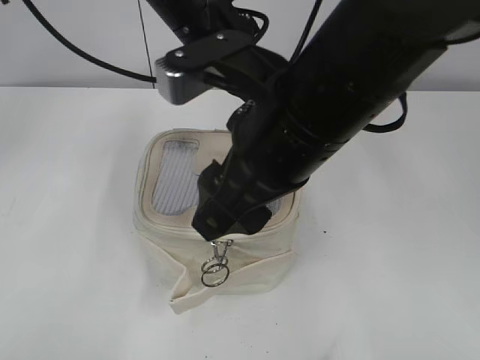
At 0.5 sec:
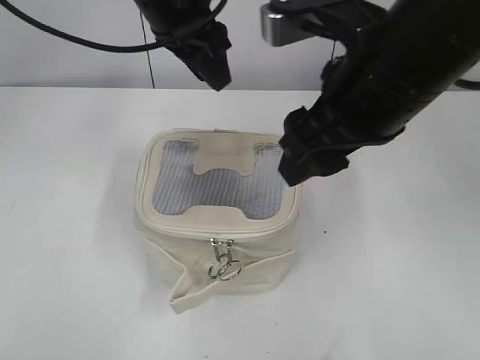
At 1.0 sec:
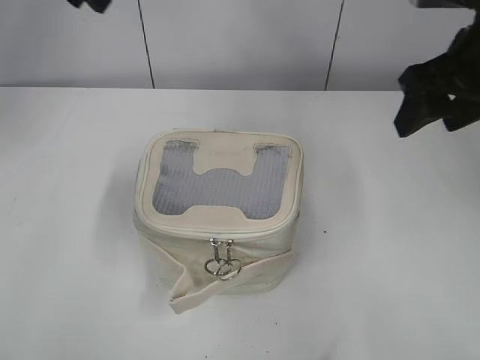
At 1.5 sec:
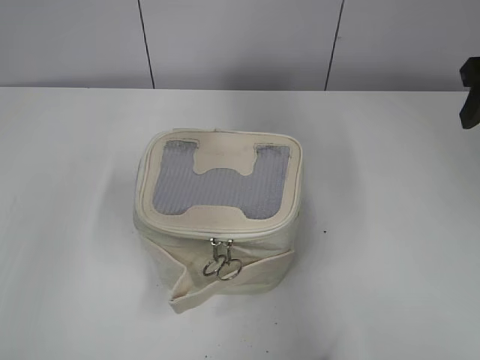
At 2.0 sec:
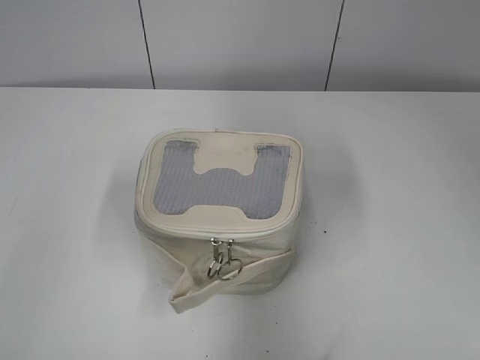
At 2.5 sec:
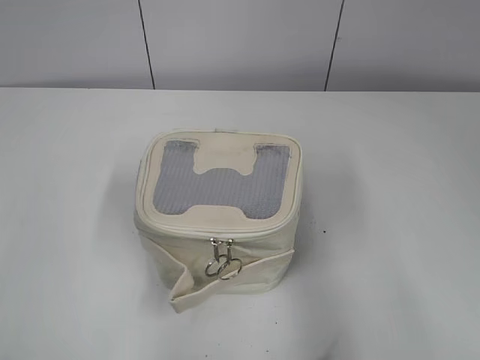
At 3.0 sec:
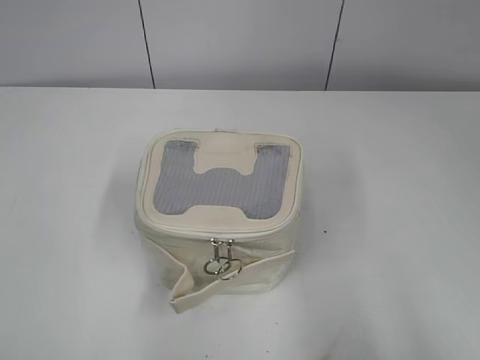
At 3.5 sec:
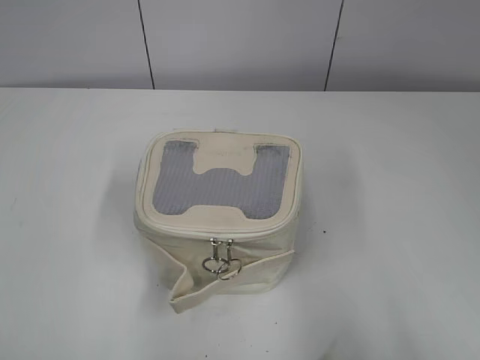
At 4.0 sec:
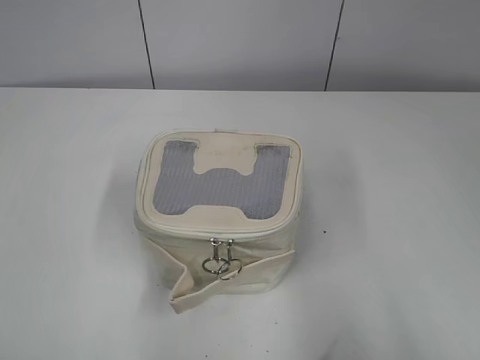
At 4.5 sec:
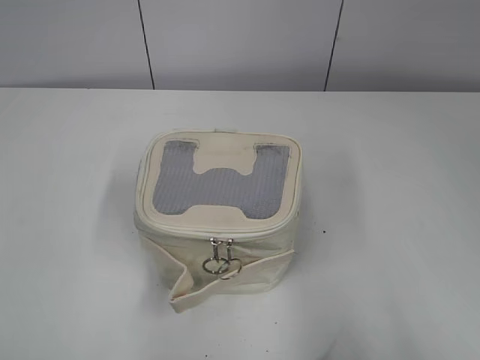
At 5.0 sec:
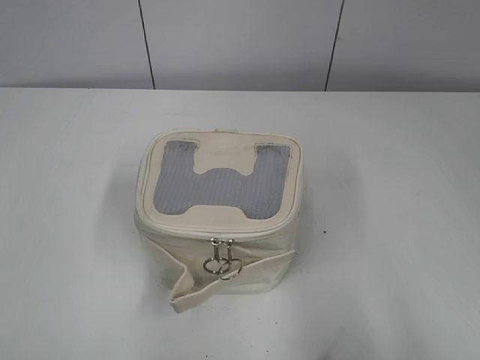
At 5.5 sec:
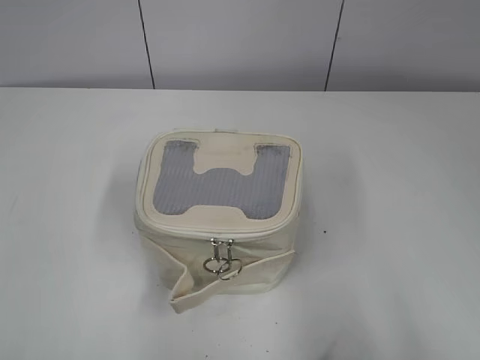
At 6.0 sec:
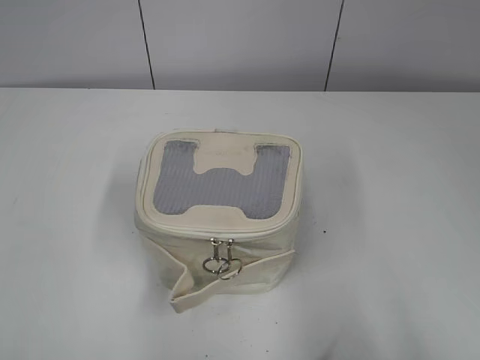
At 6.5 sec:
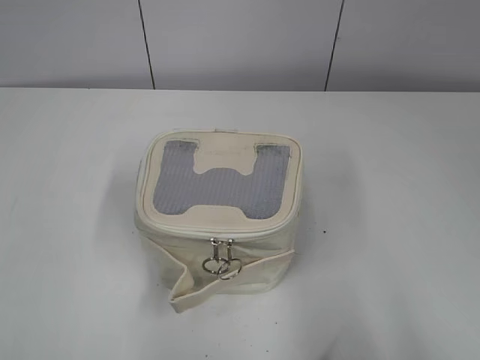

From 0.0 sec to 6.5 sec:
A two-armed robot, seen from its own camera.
From 0.0 sec to 2.0 sec: The right gripper heads to the right, covering approximately 25 cm. Meanwhile the left gripper shifts roughly 35 cm to the left and backward.
From 2.0 sec to 4.5 sec: The right gripper shifts about 25 cm backward; the left gripper heads backward and downward, covering about 10 cm.

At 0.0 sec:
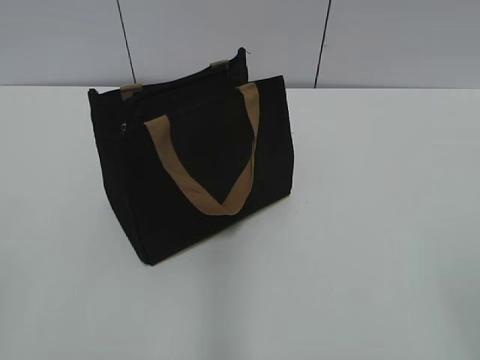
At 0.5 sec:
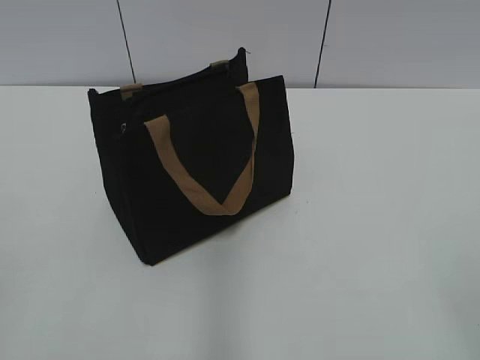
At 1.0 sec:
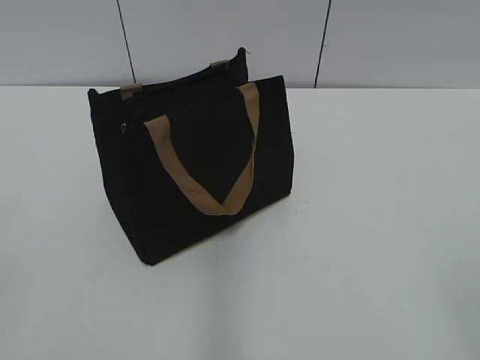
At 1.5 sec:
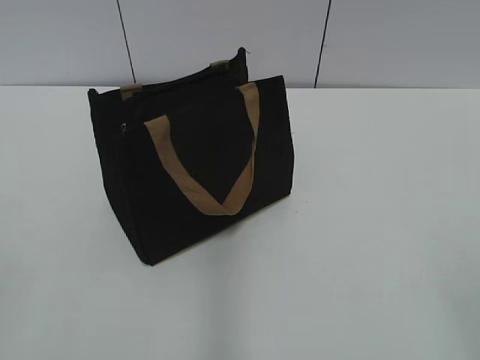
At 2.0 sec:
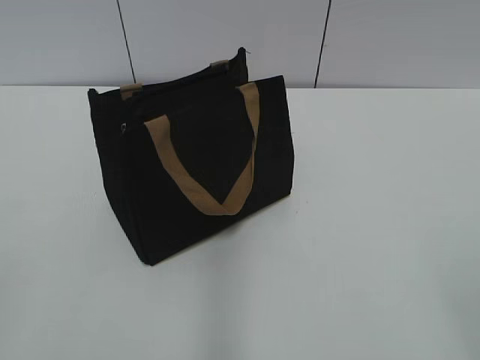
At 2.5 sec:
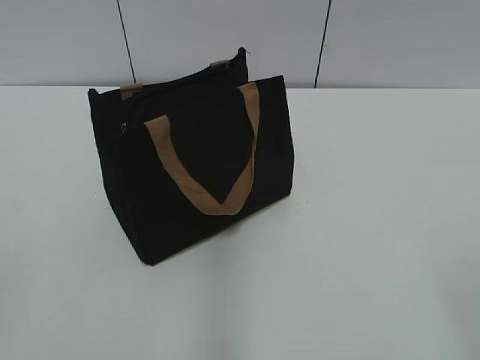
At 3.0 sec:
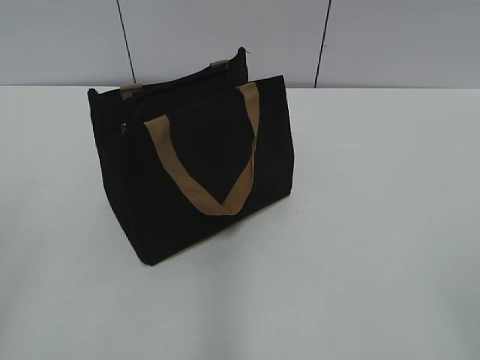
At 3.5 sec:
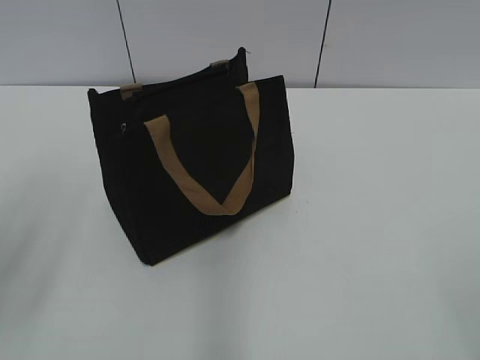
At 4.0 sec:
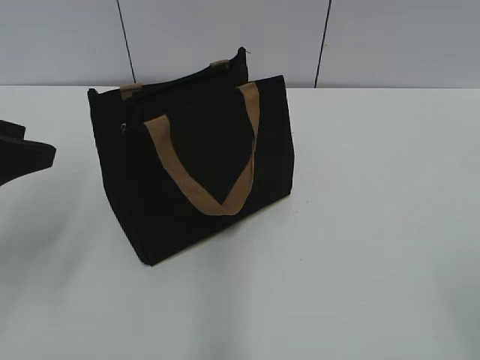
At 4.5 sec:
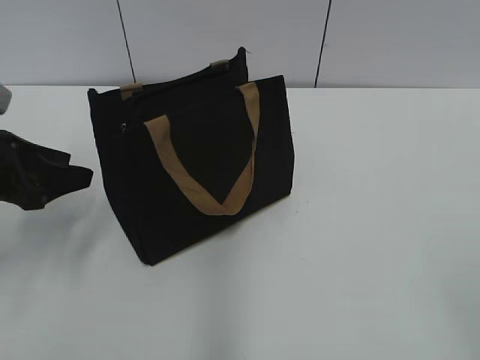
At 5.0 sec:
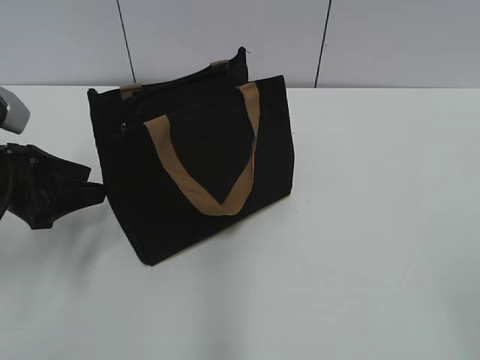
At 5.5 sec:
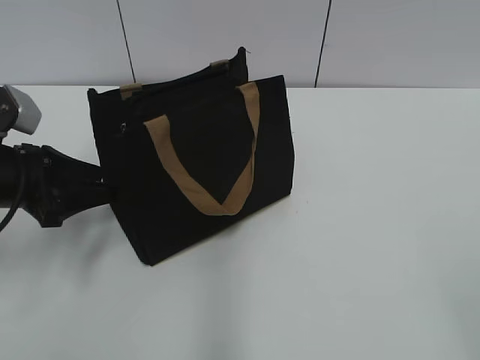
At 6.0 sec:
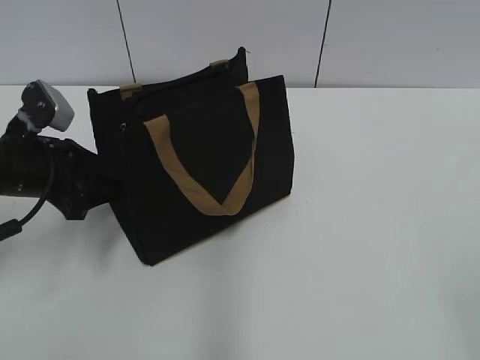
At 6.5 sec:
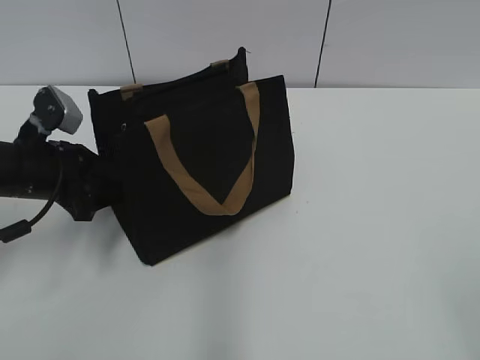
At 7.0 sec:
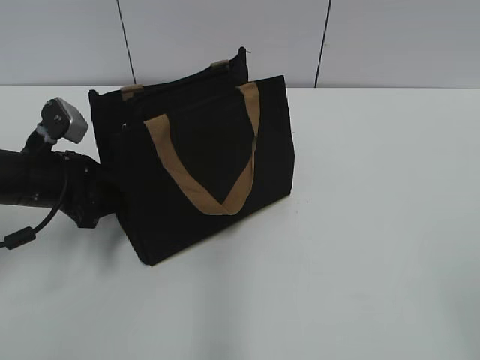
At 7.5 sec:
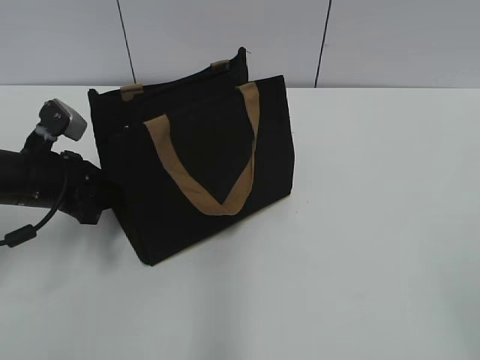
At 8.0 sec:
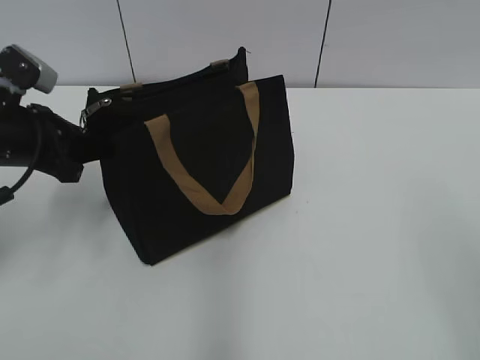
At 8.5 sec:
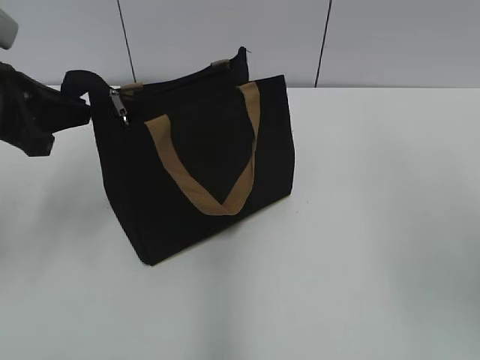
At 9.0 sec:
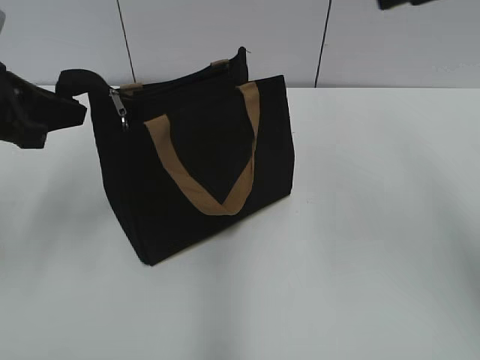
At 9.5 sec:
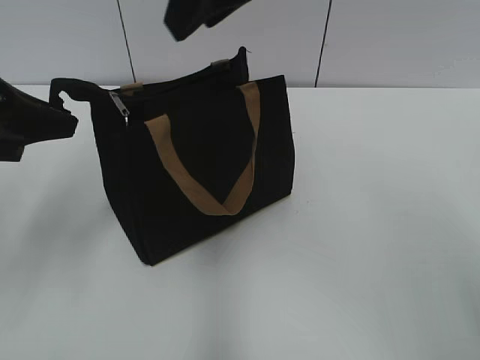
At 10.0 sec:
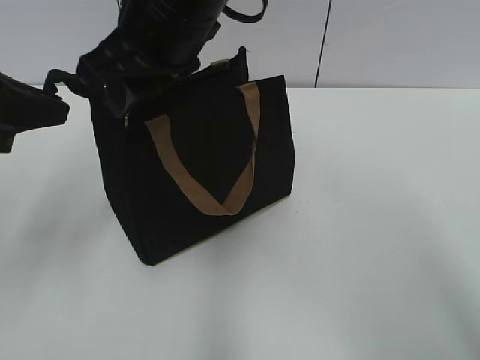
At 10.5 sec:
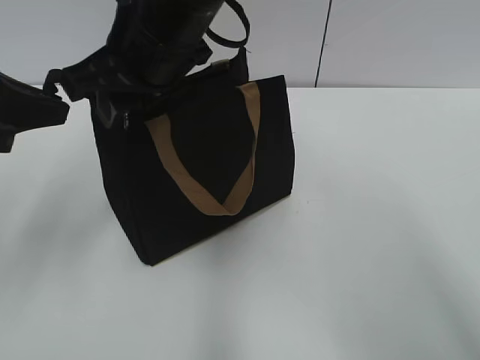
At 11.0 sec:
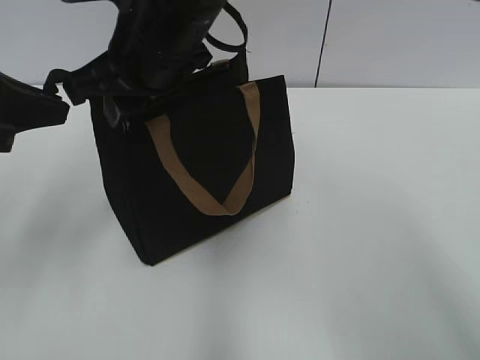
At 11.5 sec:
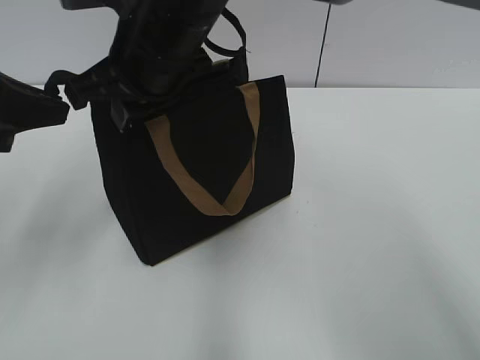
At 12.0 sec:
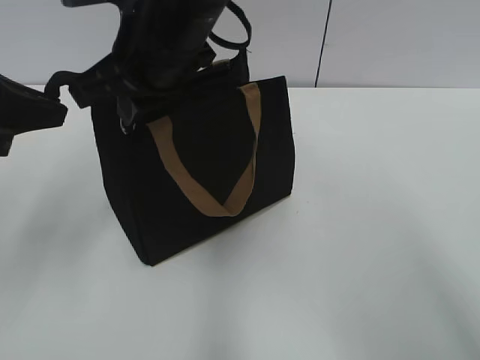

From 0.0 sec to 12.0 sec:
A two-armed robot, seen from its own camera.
From 2.0 sec to 4.0 sec: The left gripper heads forward, covering roughly 20 cm.
From 4.0 sec to 6.0 sec: The left gripper goes approximately 10 cm downward and forward.
From 6.0 sec to 8.0 sec: The left gripper closes.
From 8.0 sec to 10.0 sec: The left gripper is displaced upward and backward by about 10 cm. Meanwhile the right gripper shifts approximately 40 cm to the left and forward.
From 10.0 sec to 12.0 sec: The right gripper closes up.

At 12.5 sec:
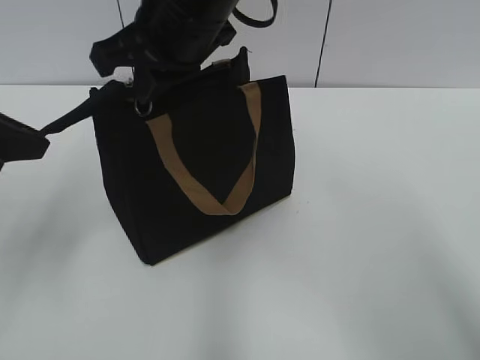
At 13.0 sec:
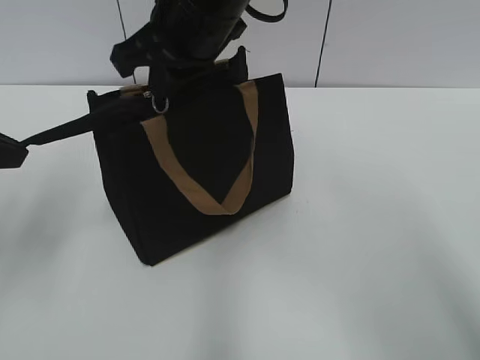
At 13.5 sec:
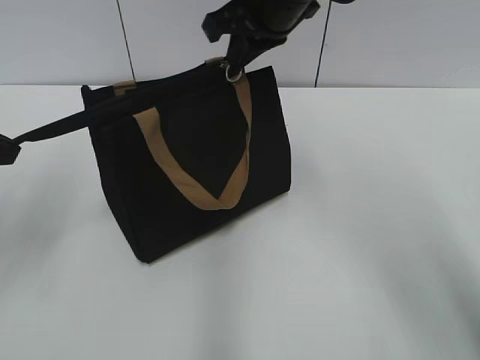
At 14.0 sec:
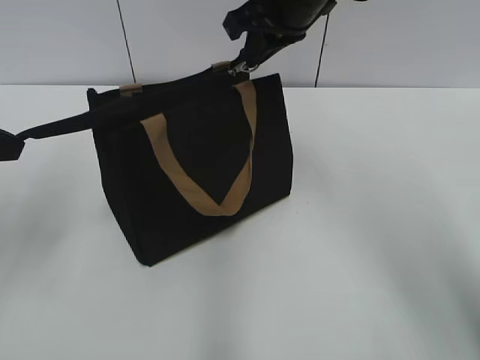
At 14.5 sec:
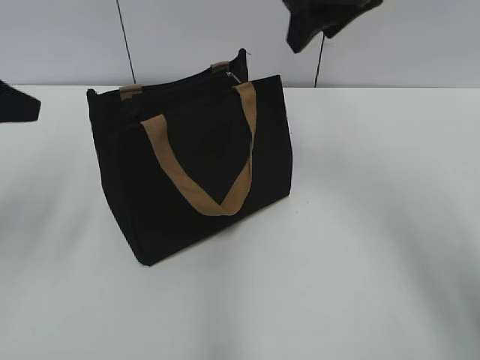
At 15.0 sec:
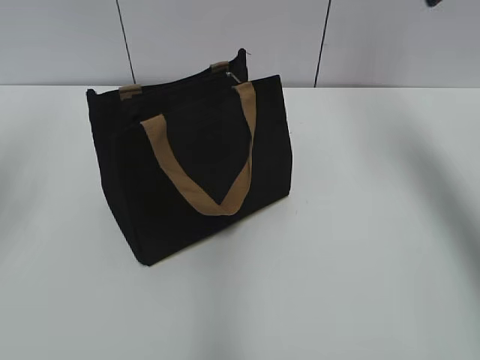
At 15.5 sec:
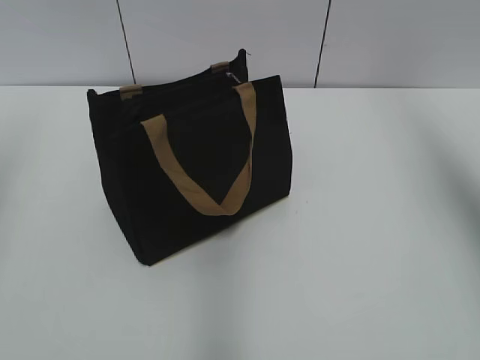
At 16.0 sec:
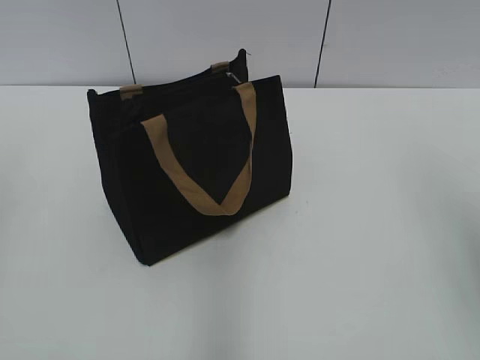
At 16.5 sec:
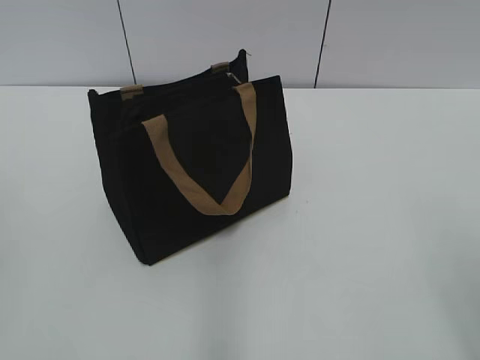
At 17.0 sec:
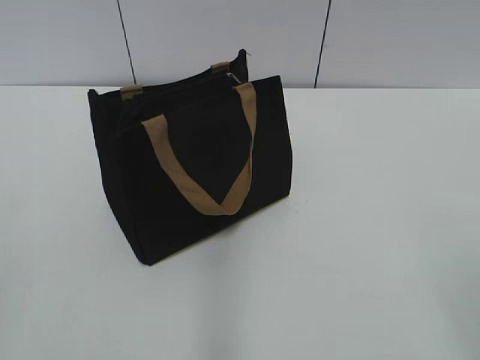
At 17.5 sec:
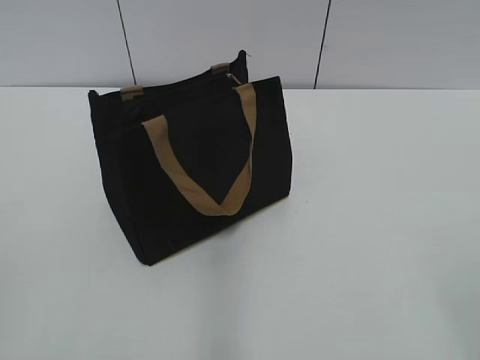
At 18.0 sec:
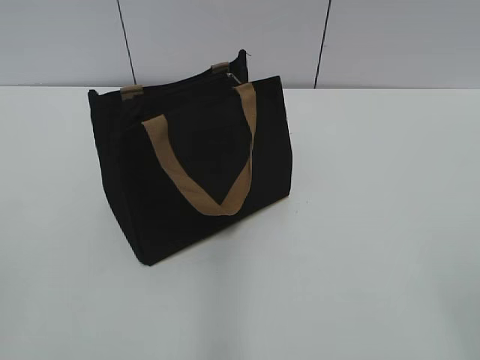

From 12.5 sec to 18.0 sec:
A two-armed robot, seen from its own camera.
From 12.5 sec to 14.5 sec: The right gripper goes some 15 cm to the right and forward, and opens up. The left gripper opens its fingers.
From 14.5 sec to 16.0 sec: The left gripper is displaced backward by some 10 cm. Meanwhile the right gripper is displaced backward and to the right by some 30 cm.
